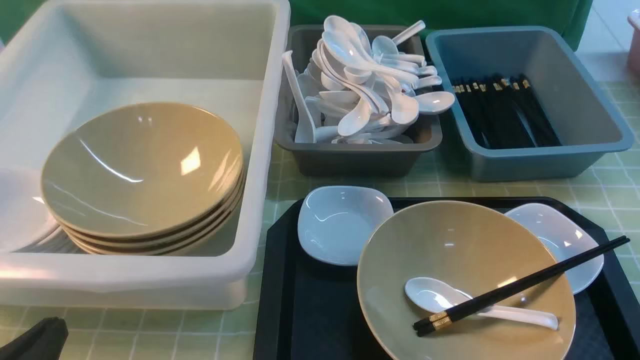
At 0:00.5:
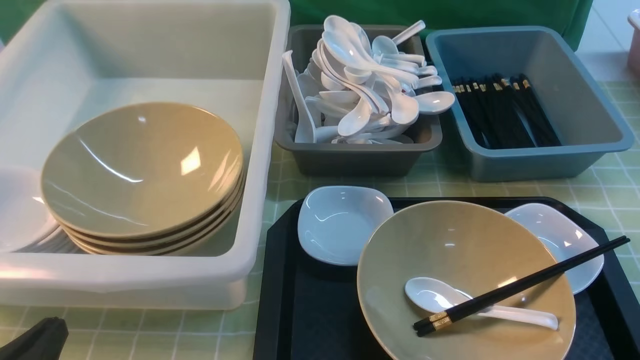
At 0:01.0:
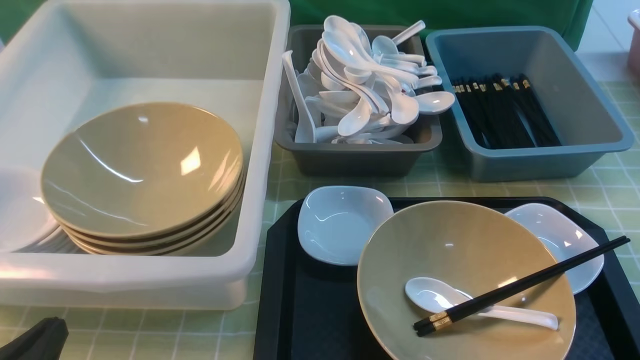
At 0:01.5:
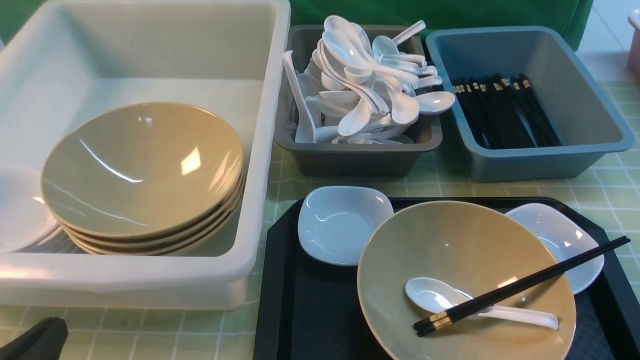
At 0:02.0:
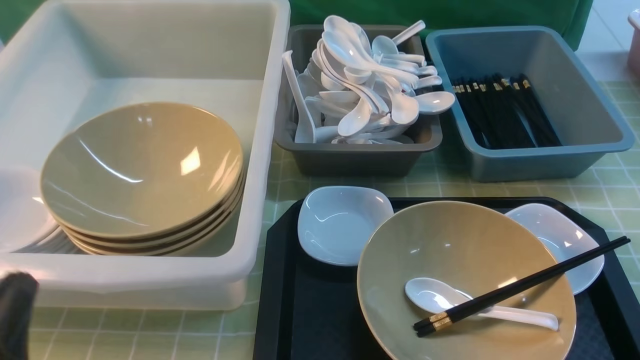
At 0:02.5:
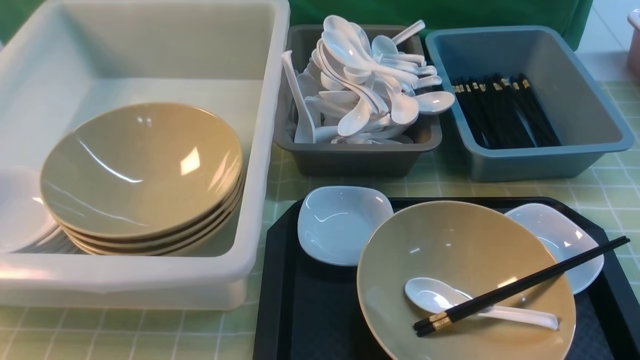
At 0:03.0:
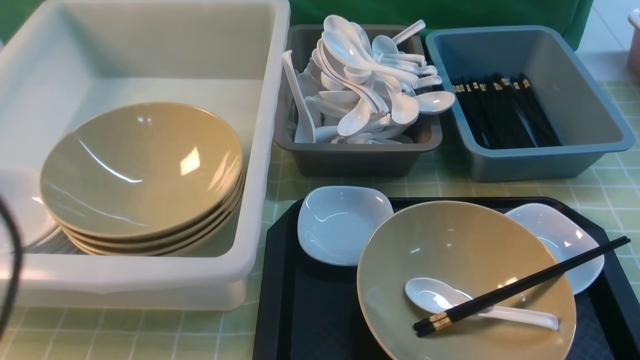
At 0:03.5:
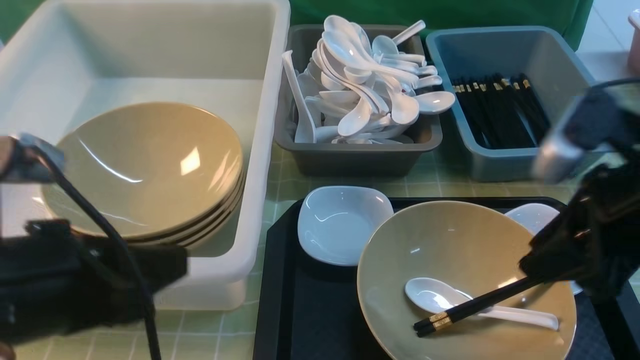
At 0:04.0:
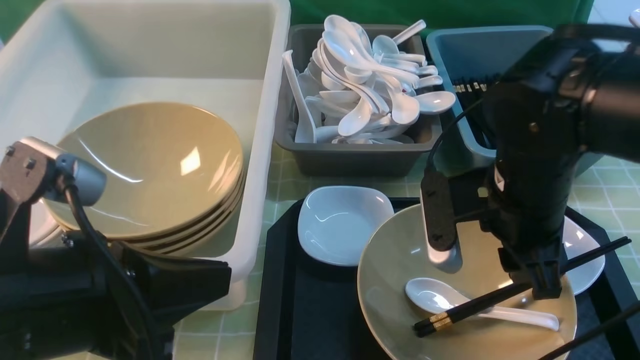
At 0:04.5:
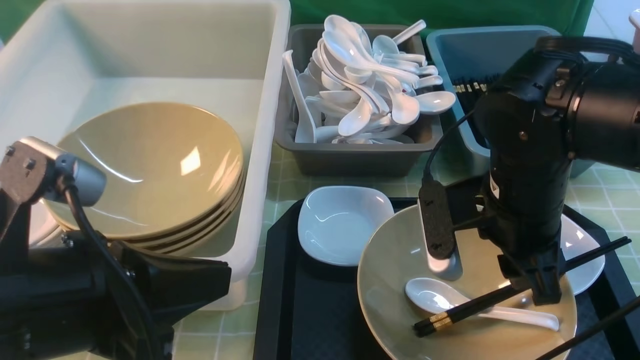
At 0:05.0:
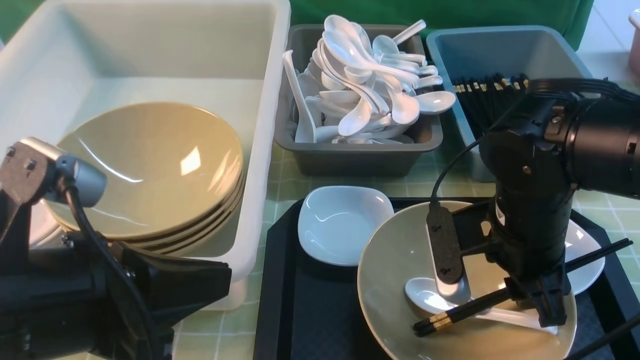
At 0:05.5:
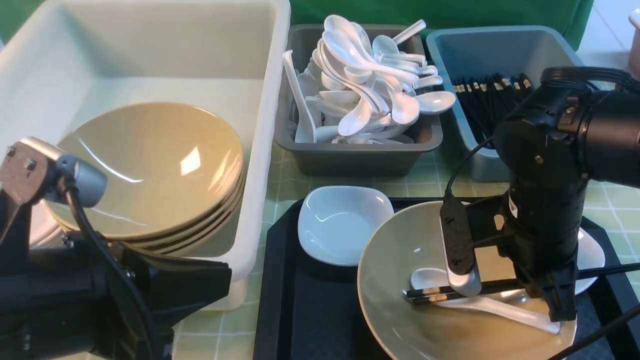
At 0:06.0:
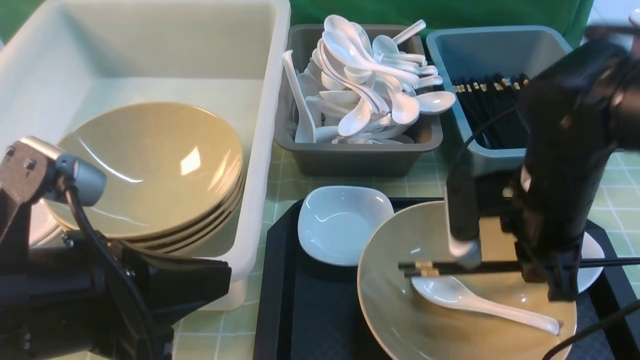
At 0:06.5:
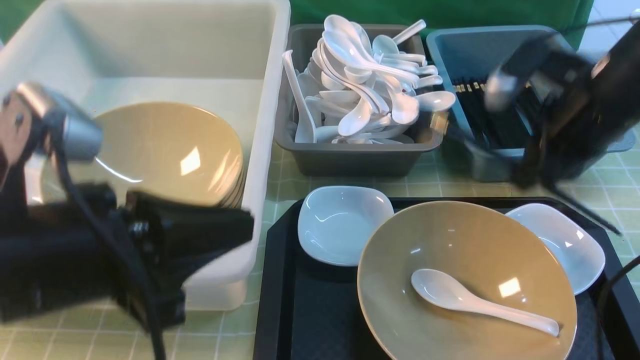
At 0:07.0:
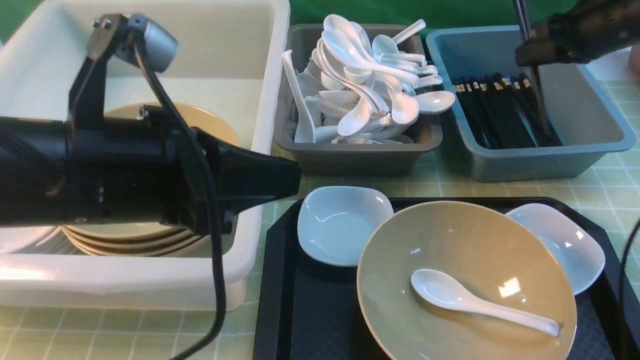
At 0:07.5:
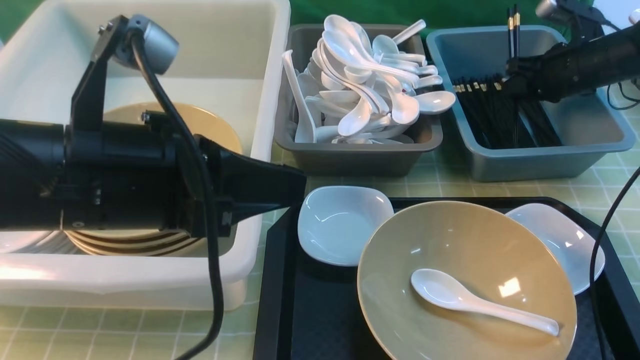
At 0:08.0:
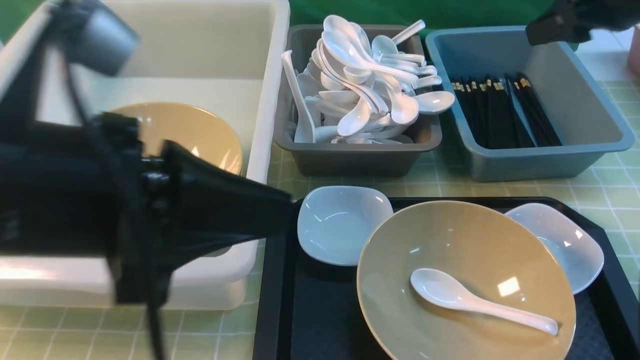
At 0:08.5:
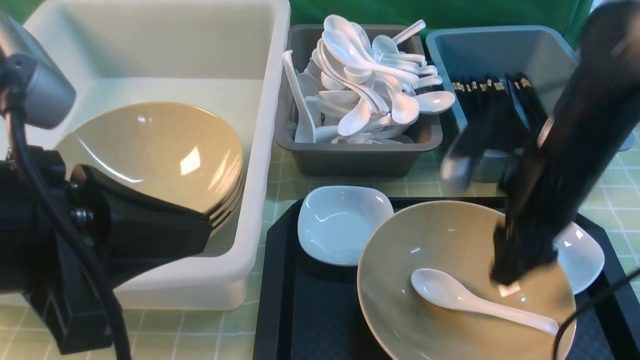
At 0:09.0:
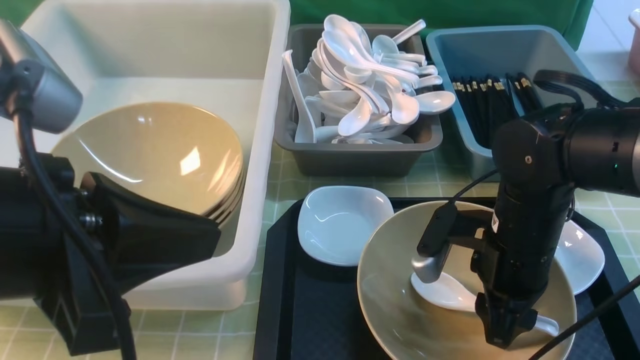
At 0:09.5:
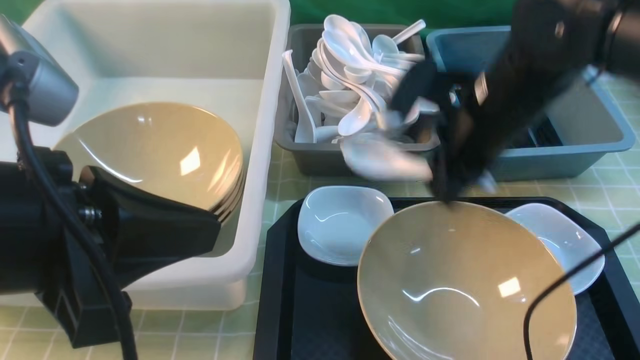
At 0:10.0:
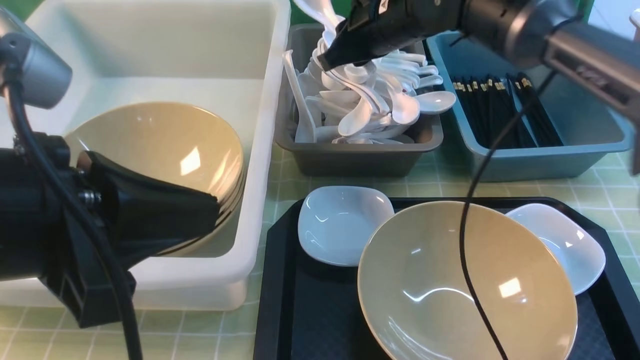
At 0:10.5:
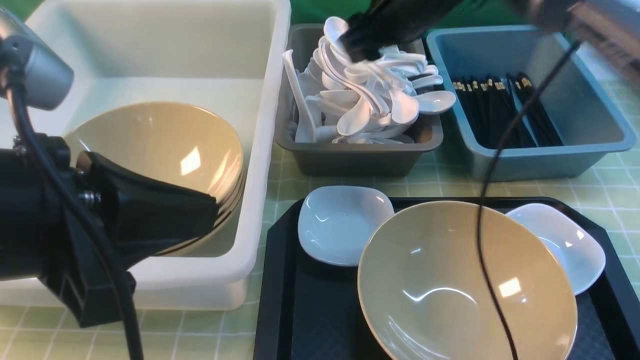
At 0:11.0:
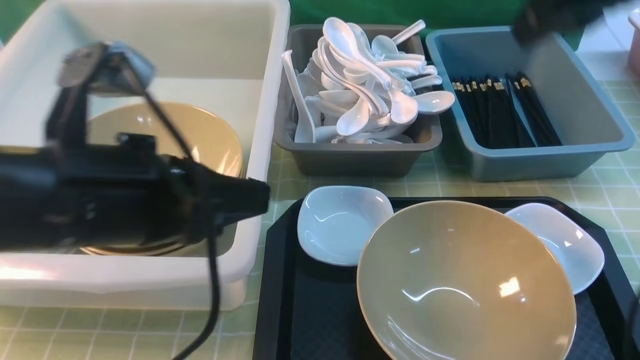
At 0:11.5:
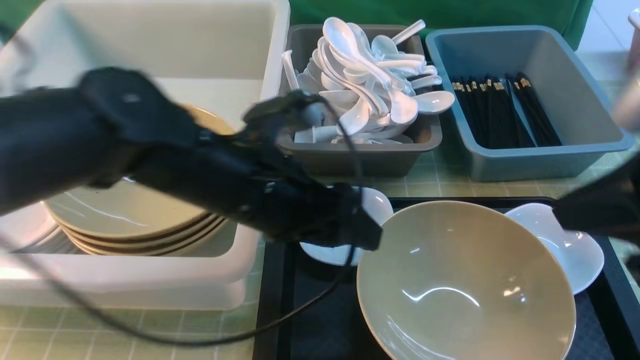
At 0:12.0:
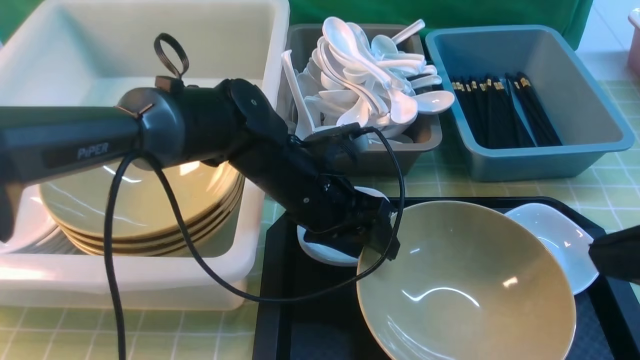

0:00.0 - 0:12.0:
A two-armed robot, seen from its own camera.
Task of the whole recording: on green table put chopsticks spoon bowls plates into blue grey white boxes.
Step, 0:00.0 - 0:06.0: use the right arm to grab the chopsticks.
Step, 0:06.5 - 0:07.5: use the right arm to put the chopsticks into the small storage box on the right.
Step, 0:08.0 - 0:09.0: use the right arm to grab the soup spoon in the middle.
Step, 0:09.5 - 0:10.5: use the right arm to put the soup spoon into the small storage box in the middle.
0:02.0 - 0:04.0: The right gripper heads forward and to the left, covering some 25 cm, while the left gripper goes some 15 cm upward, to the right and forward.
0:04.0 - 0:06.0: The right gripper closes its fingers.
0:06.0 - 0:08.0: The left gripper goes approximately 5 cm upward. The right gripper moves forward, to the right and upward, approximately 20 cm, and opens.
0:08.0 - 0:10.0: The right gripper is displaced to the left by roughly 20 cm, and closes up.
0:10.0 - 0:12.0: The left gripper goes approximately 30 cm forward, downward and to the right, and opens up; the right gripper shifts roughly 40 cm backward and to the right, and closes up.

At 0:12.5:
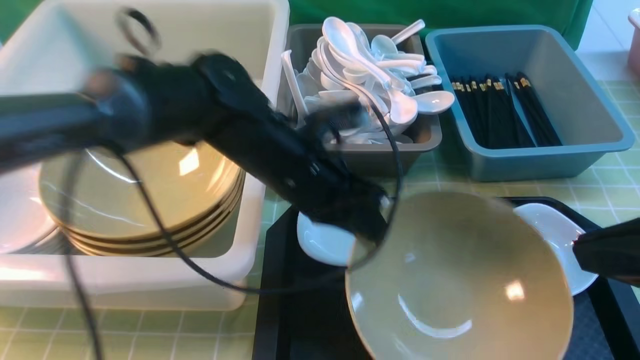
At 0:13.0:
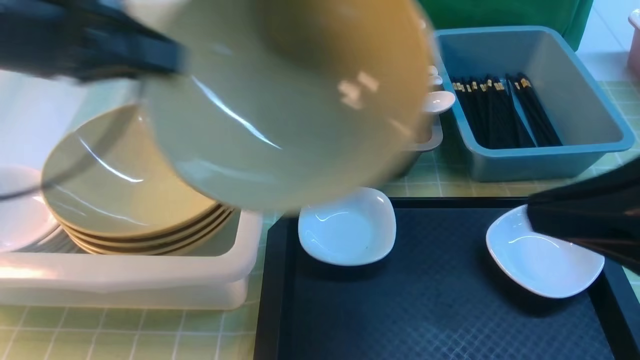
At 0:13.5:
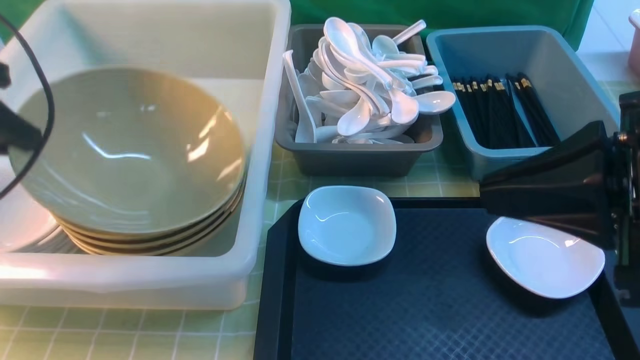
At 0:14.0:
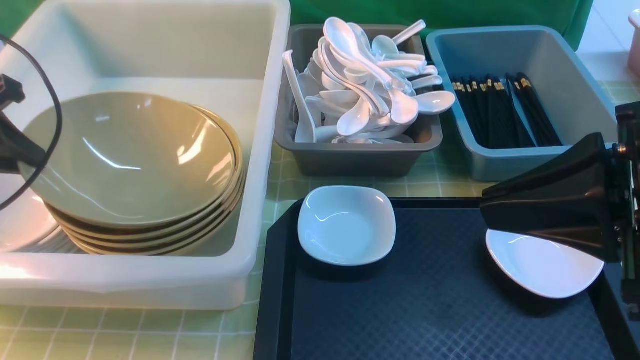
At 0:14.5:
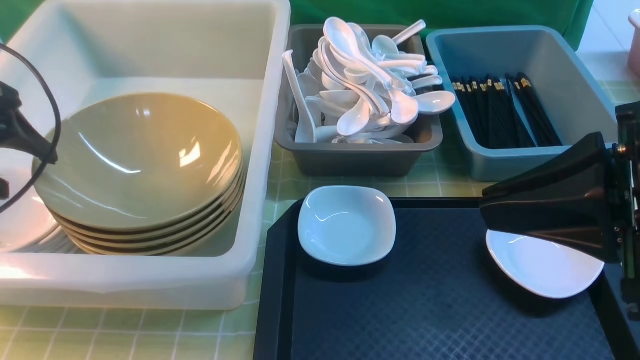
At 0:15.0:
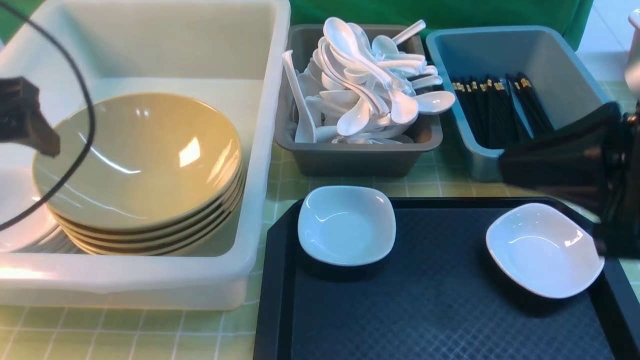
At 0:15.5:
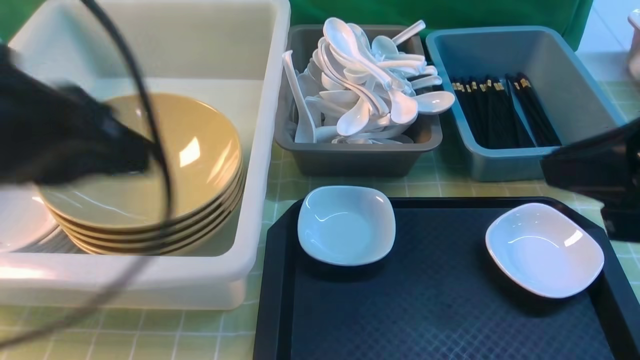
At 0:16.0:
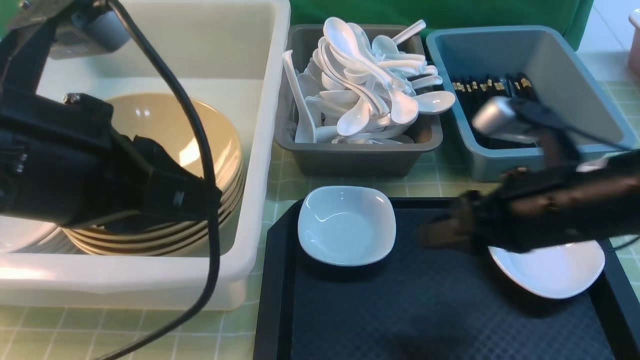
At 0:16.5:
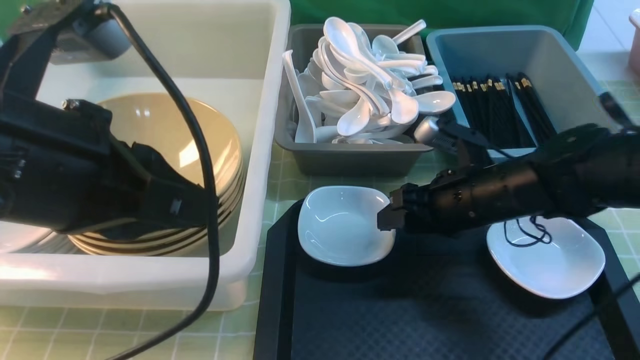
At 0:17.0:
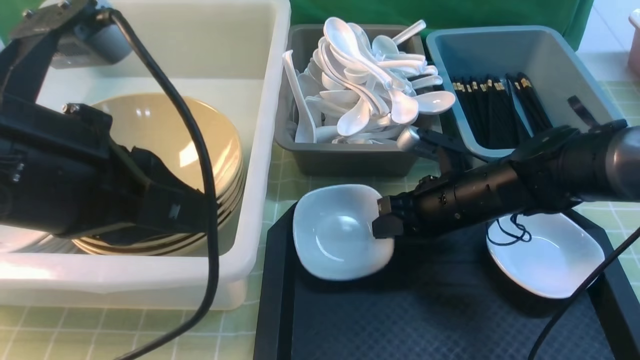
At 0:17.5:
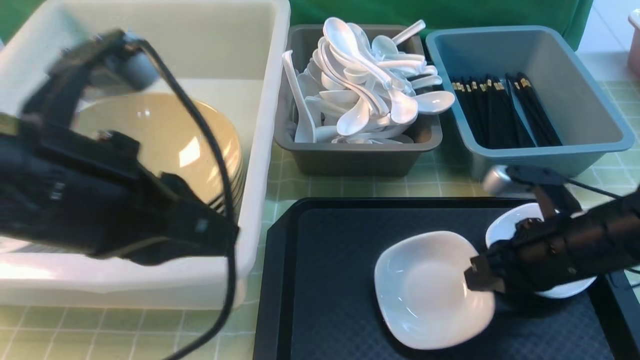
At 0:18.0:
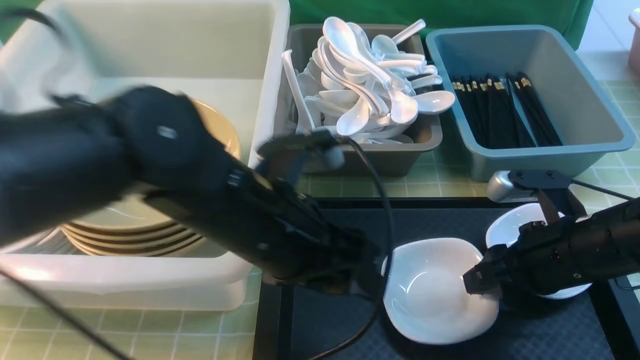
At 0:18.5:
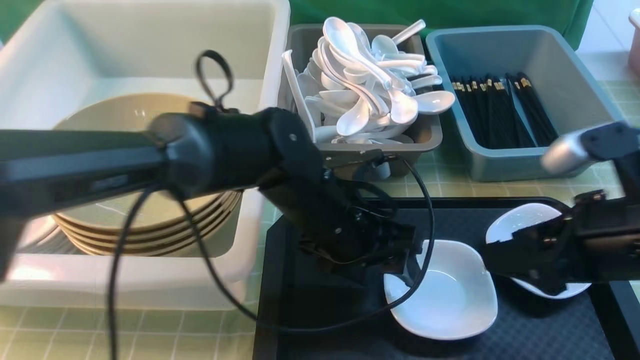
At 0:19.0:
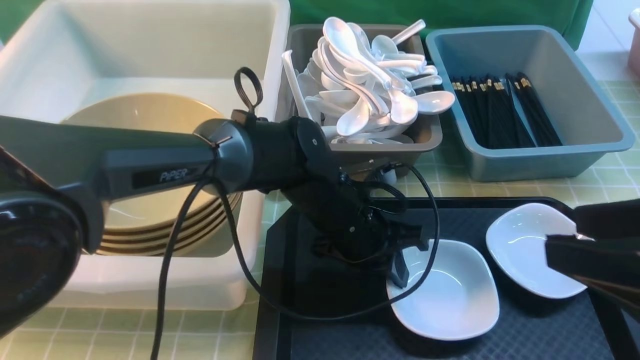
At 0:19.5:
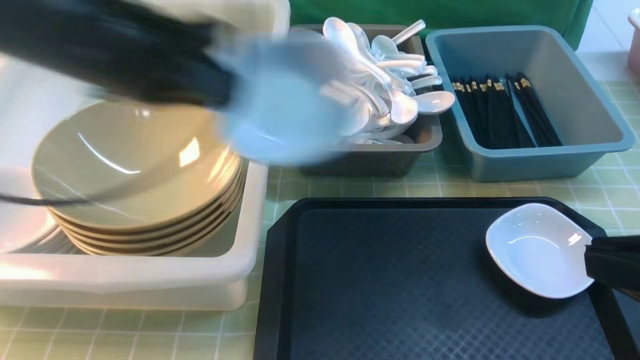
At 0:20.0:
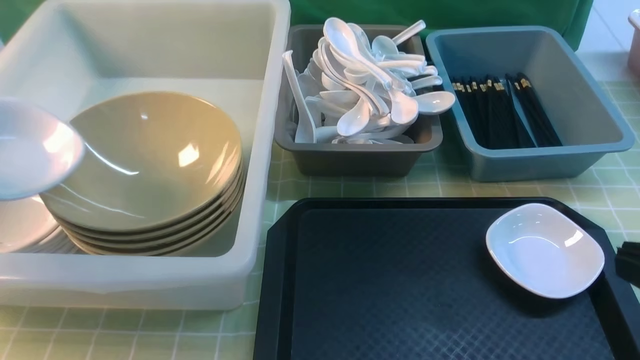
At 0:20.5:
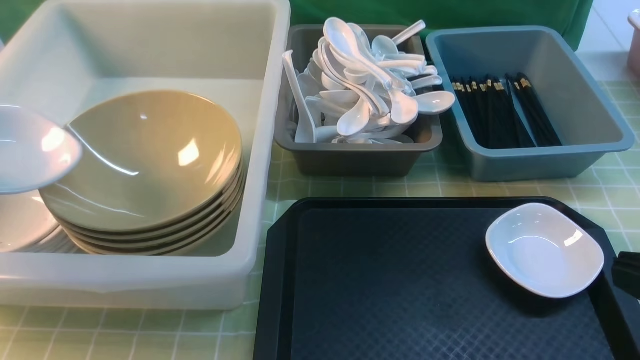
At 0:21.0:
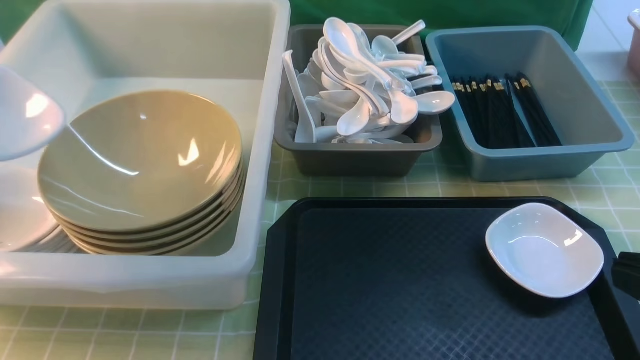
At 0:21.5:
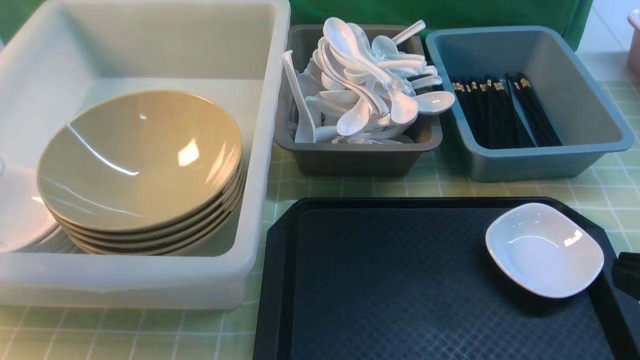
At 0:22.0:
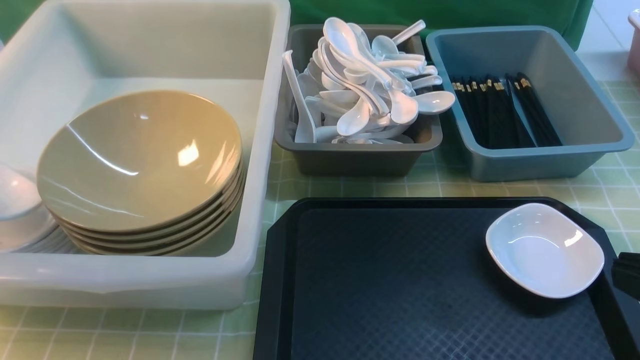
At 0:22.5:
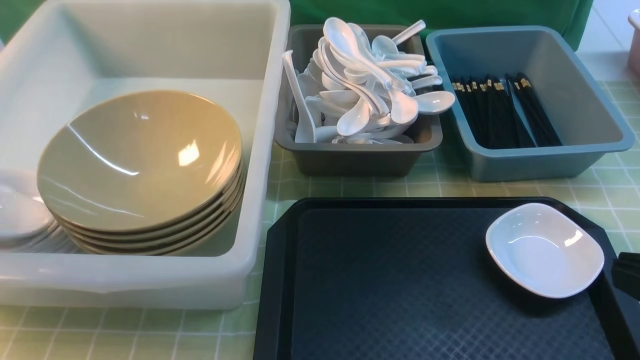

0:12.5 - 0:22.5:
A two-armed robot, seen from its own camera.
Task of the whole recording: on green table put chopsticks spoon bowls plates into blue grey white boxes.
Step, 0:13.0 - 0:14.5: use the left arm to put the noodle bowl into the large storage box on the left.
Step, 0:15.0 - 0:17.0: use the right arm to grab the plate.
Step, 0:18.5 - 0:19.0: use the left arm to grab the plate.
0:12.5 - 0:14.5: The right gripper moves approximately 5 cm. The left gripper heads to the left, covering about 30 cm, and opens up.
0:14.5 - 0:16.5: The right gripper travels downward and forward by approximately 25 cm, and opens. The left gripper travels to the right, backward and upward by roughly 25 cm, and closes up.
0:16.5 - 0:18.5: The right gripper goes some 20 cm backward, upward and to the right, and closes and opens again; the left gripper heads downward, to the right and forward, covering some 30 cm, and opens up.
0:18.5 - 0:20.5: The left gripper is displaced to the left and upward by some 40 cm, and closes, while the right gripper heads backward and upward, covering about 15 cm, and closes up.
0:20.5 - 0:22.5: The left gripper shifts by roughly 5 cm, and opens its fingers.
